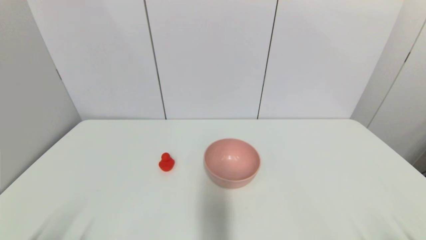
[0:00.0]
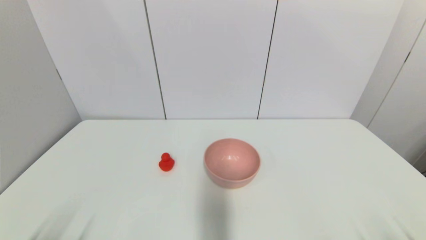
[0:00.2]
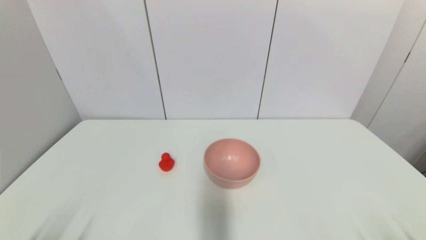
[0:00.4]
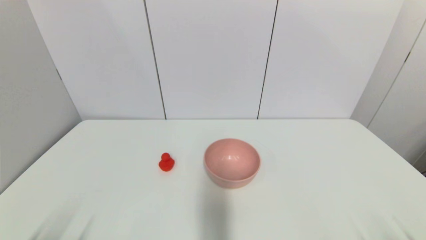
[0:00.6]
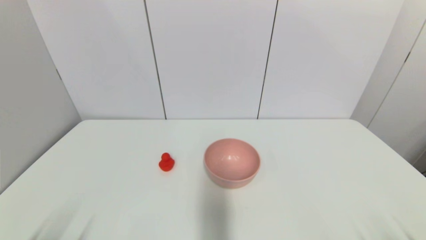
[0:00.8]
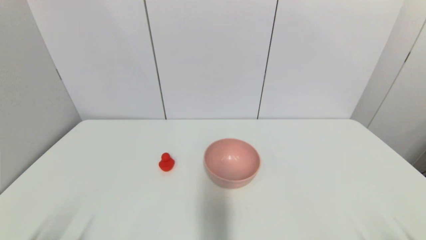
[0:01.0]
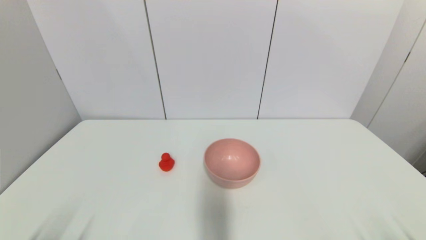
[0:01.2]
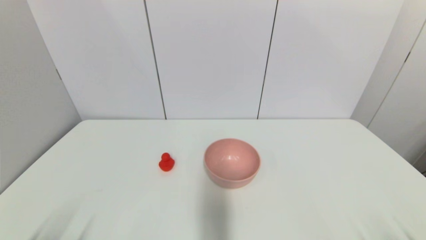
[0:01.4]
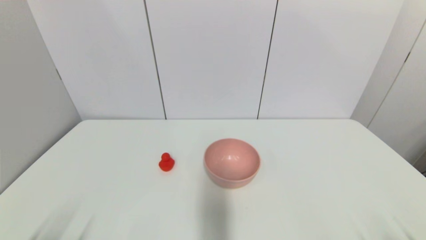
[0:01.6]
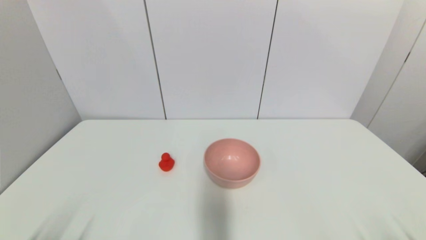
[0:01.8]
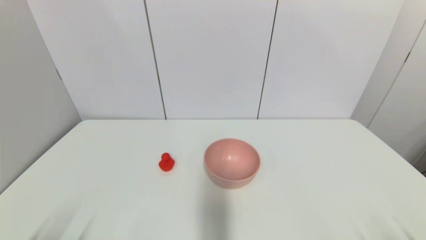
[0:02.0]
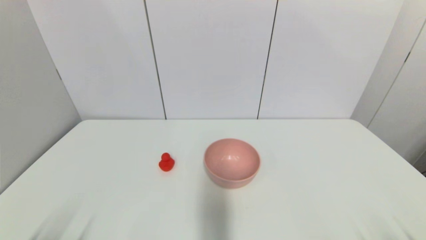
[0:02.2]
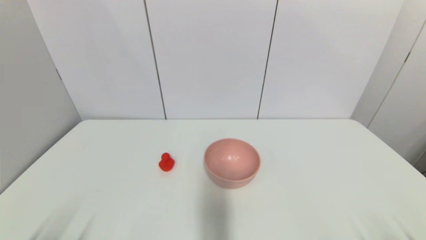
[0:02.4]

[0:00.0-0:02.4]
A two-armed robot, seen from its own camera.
0:00.0 to 0:02.4: Both grippers stay put.

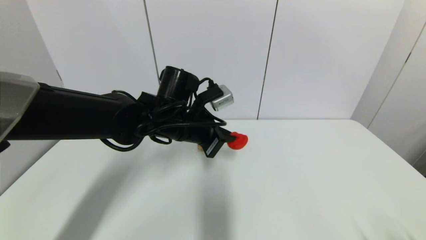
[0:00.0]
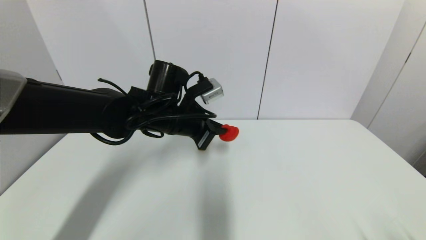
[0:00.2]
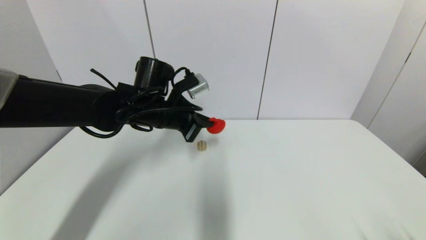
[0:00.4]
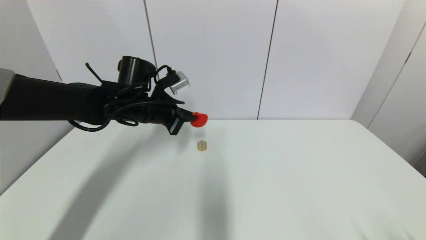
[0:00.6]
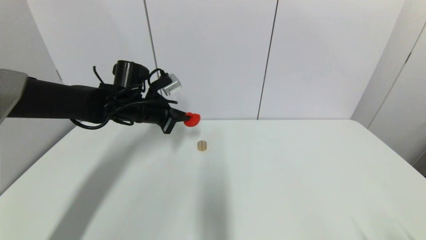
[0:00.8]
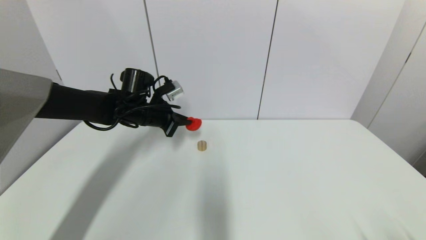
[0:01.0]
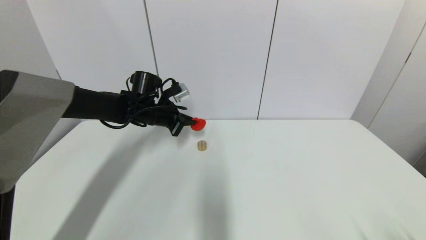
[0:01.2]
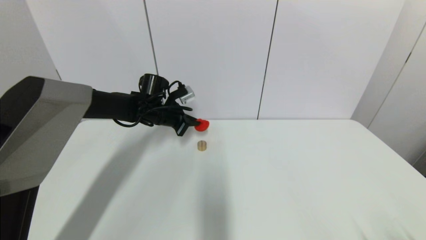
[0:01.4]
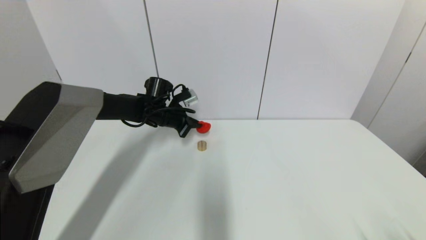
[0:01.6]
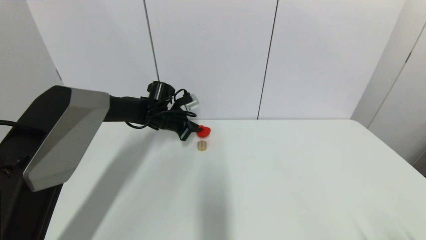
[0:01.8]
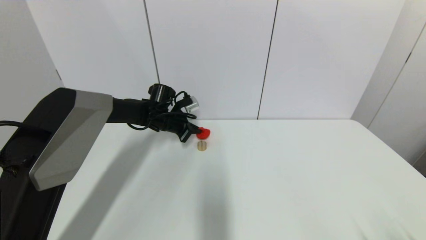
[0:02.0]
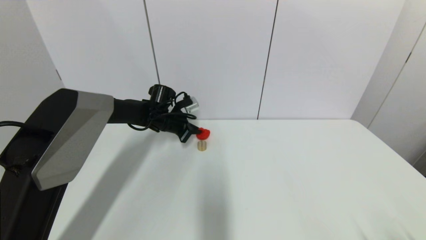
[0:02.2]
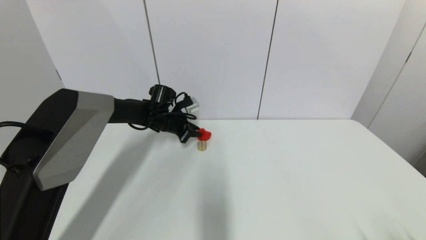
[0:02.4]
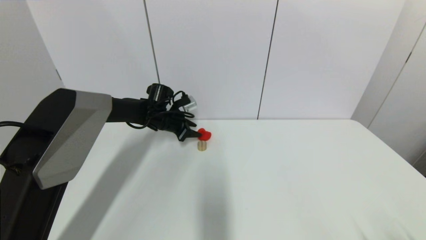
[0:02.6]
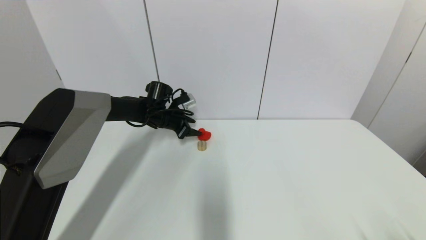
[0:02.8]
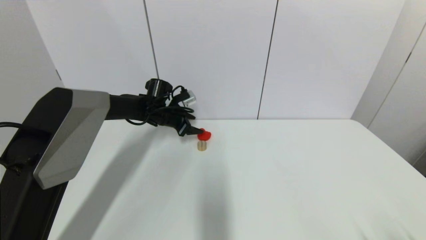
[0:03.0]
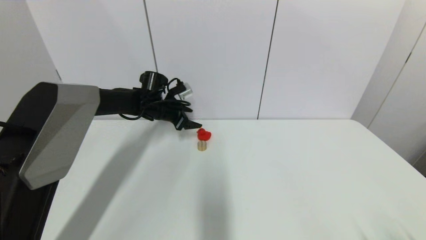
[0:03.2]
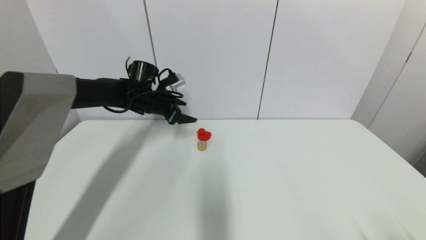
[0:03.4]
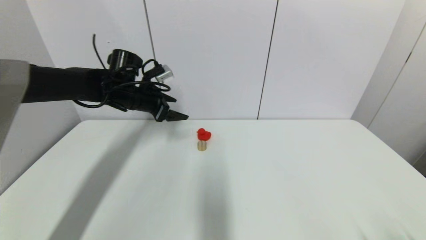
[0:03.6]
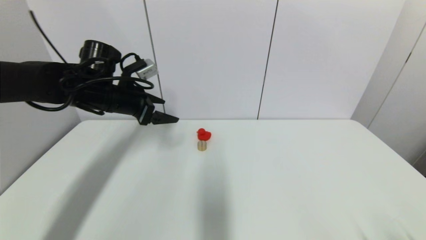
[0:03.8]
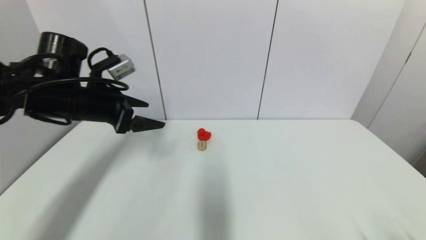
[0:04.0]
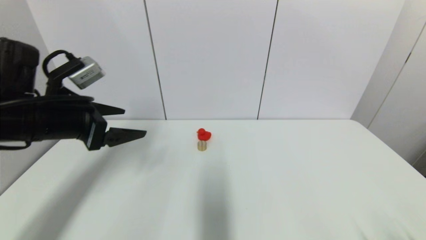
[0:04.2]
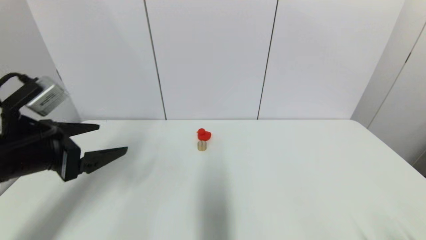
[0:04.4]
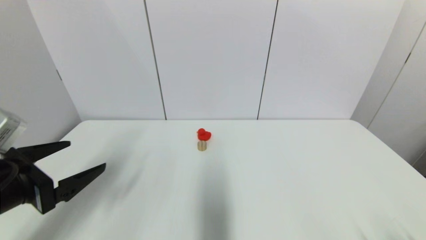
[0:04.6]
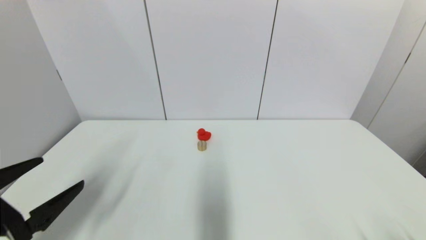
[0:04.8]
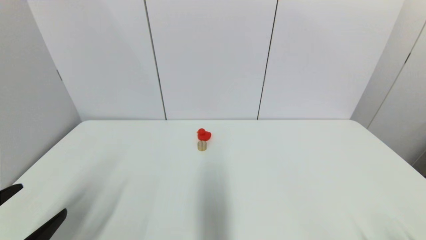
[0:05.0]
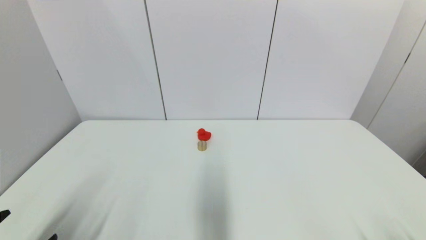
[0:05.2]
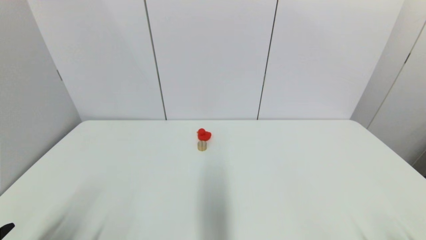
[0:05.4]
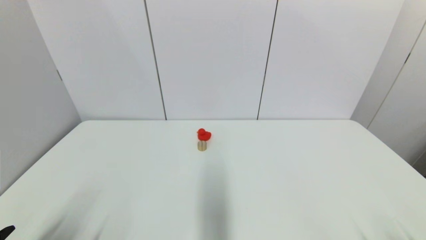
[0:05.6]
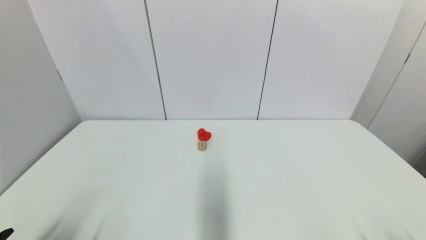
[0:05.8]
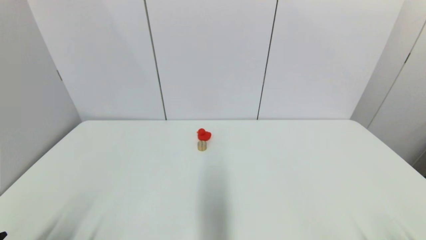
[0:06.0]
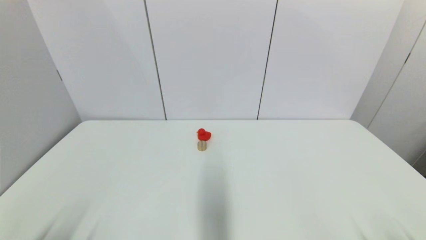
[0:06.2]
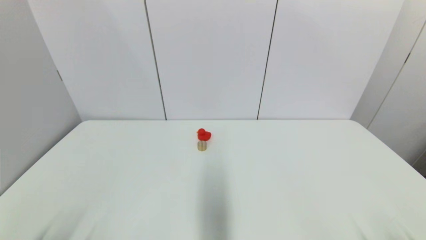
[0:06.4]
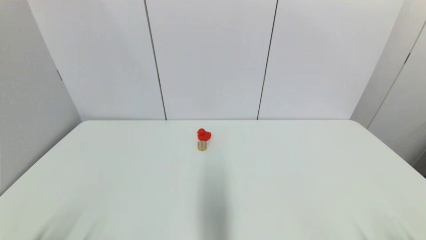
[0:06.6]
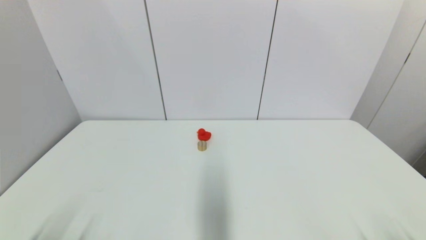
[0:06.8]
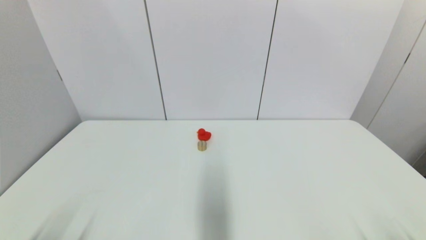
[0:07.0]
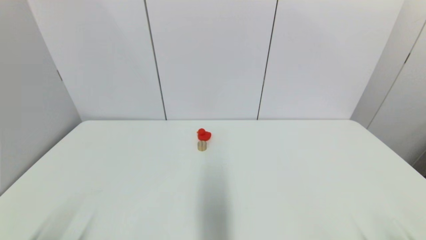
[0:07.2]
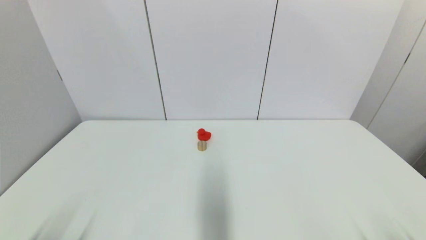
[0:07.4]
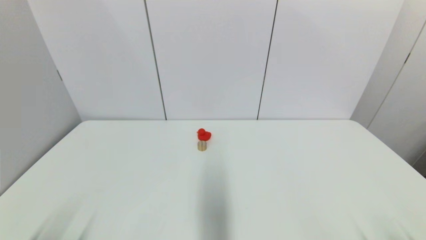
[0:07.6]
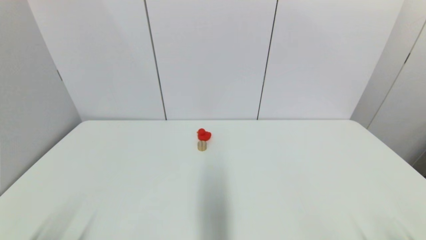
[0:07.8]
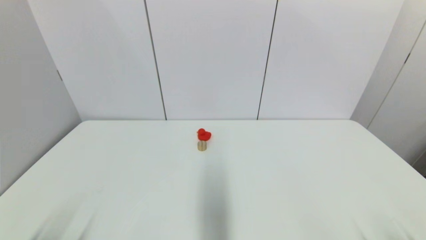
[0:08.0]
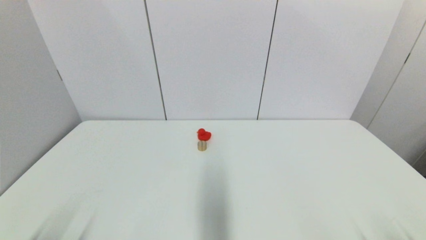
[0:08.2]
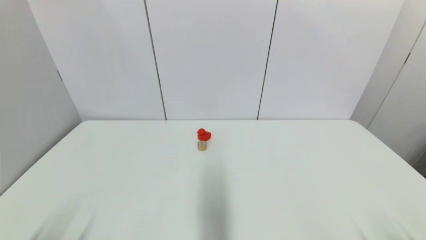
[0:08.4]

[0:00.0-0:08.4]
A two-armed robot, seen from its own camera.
Step, 0:00.0 to 0:02.6: Place the red duck on the table with left gripper.
0:00.0 to 0:01.4: The left gripper goes some 15 cm forward and to the left.
0:01.4 to 0:02.8: The left gripper opens its fingers.
0:02.8 to 0:04.2: The left gripper heads backward, upward and to the left, covering roughly 30 cm.
0:04.2 to 0:05.6: The left gripper travels backward and downward by roughly 25 cm.
0:07.0 to 0:08.4: Both grippers stay about where they are.
